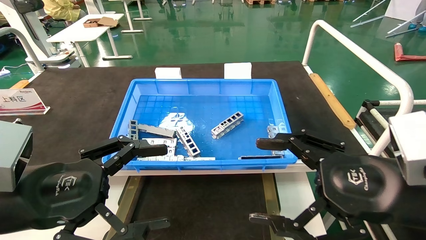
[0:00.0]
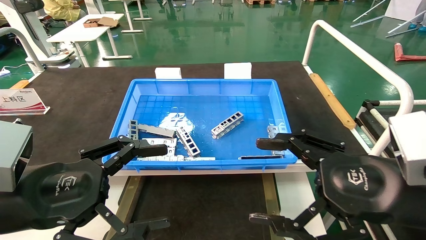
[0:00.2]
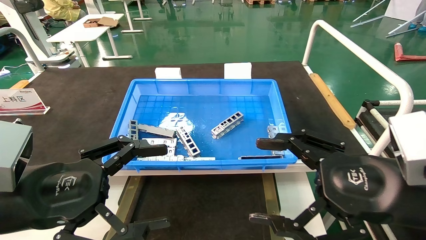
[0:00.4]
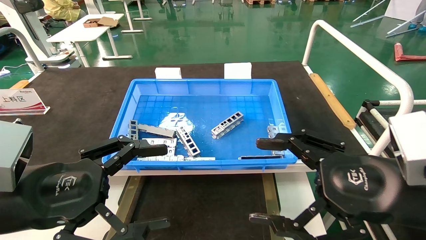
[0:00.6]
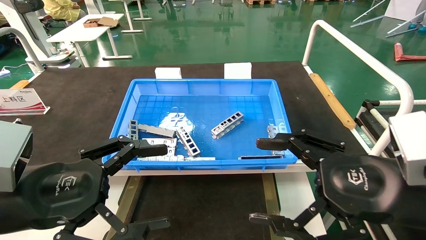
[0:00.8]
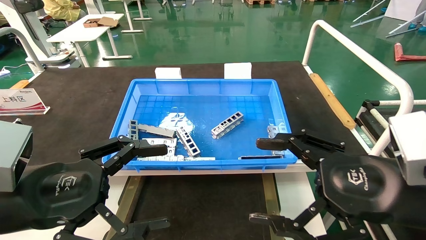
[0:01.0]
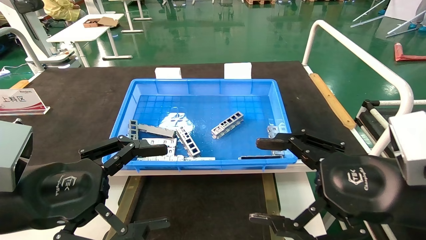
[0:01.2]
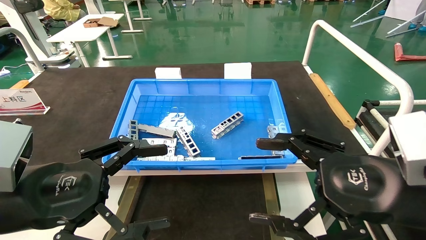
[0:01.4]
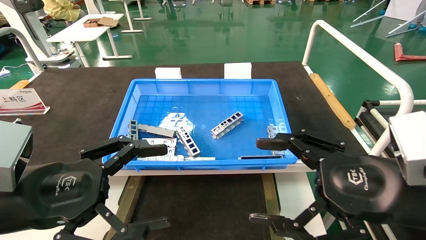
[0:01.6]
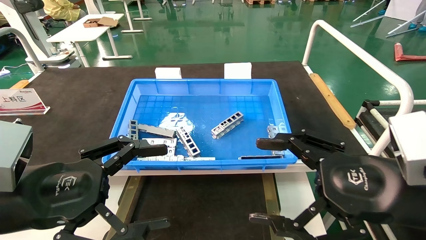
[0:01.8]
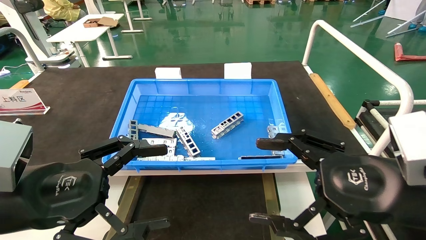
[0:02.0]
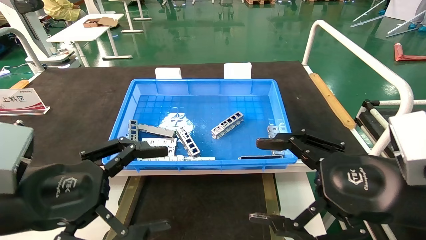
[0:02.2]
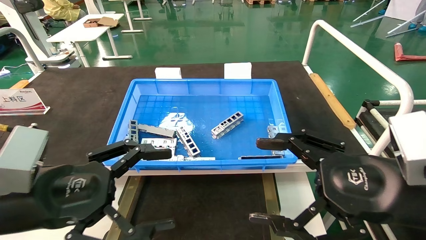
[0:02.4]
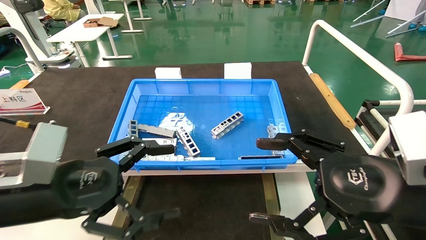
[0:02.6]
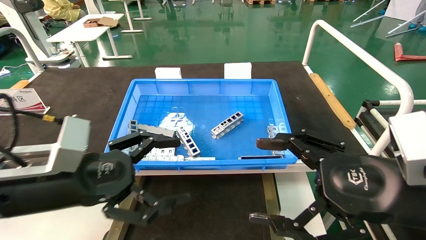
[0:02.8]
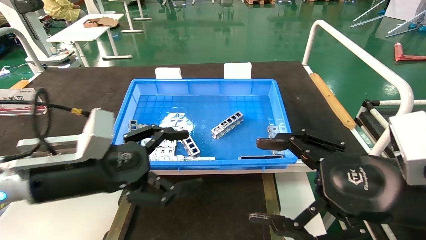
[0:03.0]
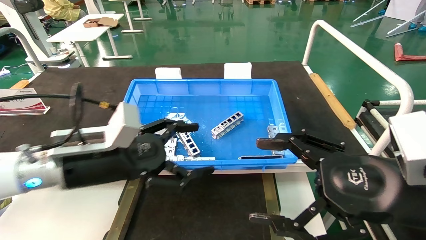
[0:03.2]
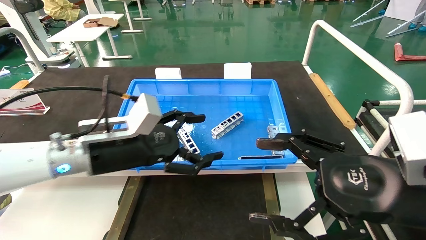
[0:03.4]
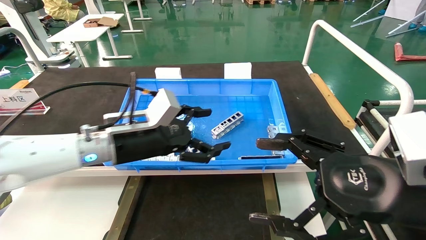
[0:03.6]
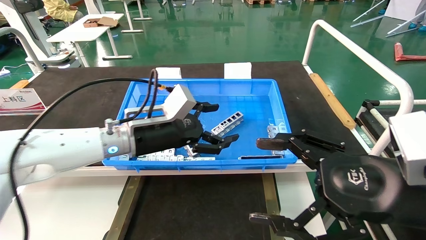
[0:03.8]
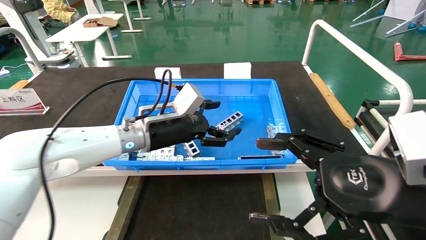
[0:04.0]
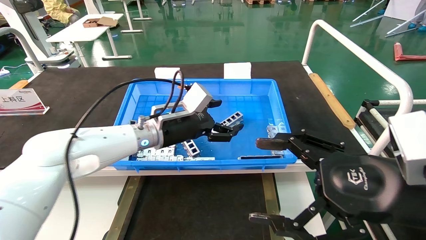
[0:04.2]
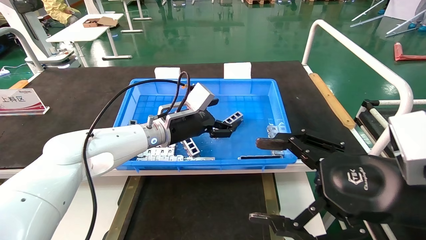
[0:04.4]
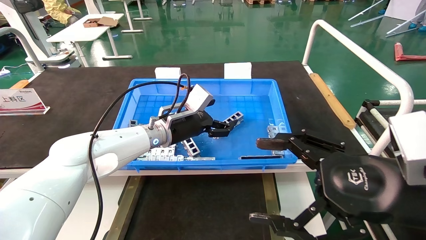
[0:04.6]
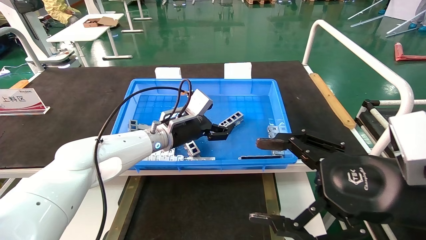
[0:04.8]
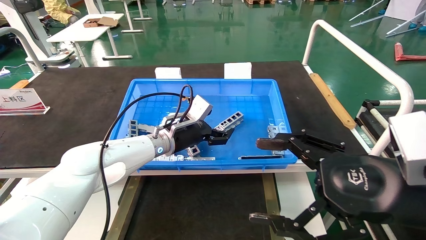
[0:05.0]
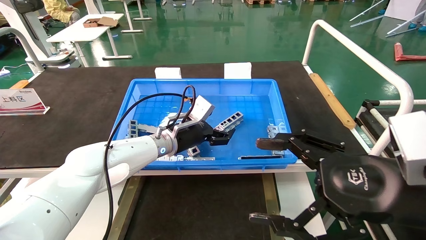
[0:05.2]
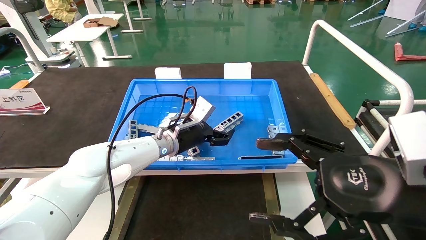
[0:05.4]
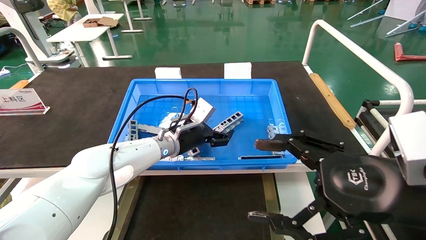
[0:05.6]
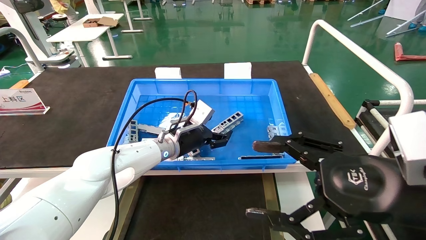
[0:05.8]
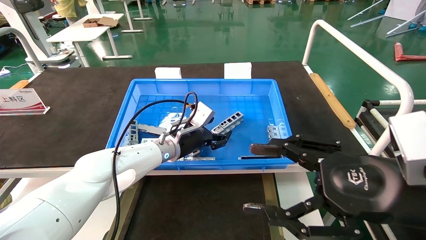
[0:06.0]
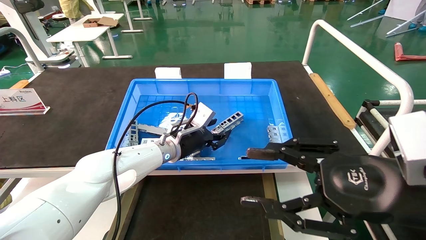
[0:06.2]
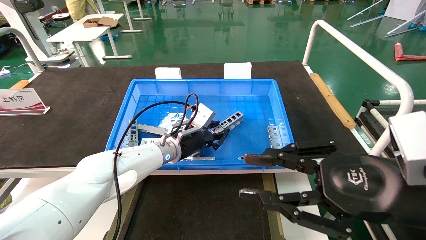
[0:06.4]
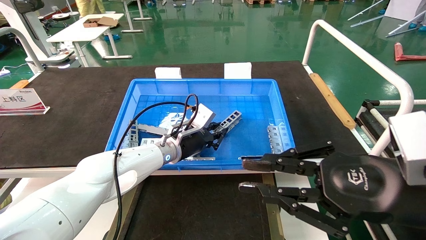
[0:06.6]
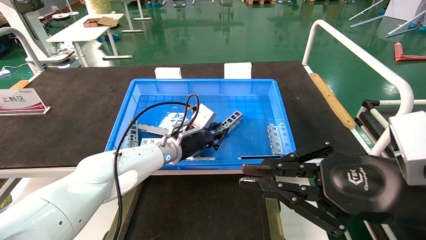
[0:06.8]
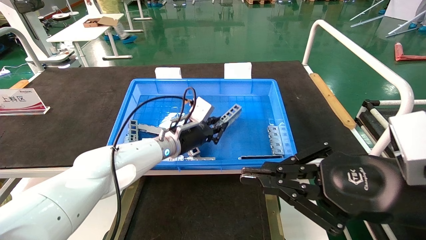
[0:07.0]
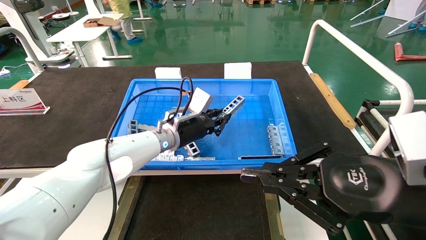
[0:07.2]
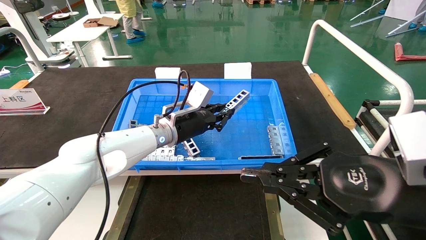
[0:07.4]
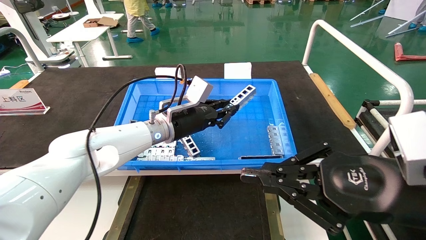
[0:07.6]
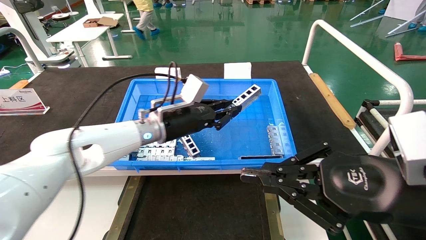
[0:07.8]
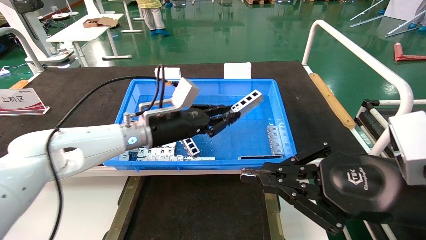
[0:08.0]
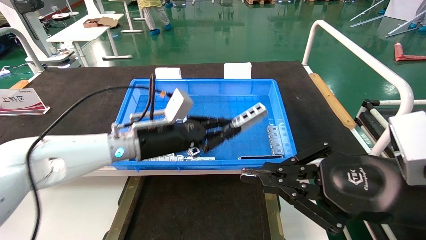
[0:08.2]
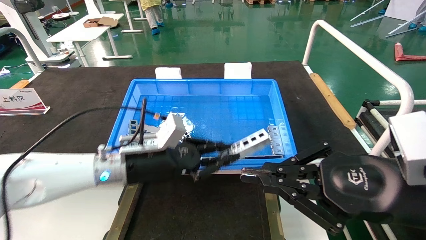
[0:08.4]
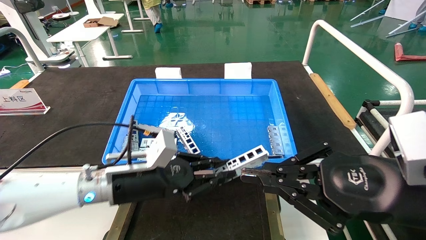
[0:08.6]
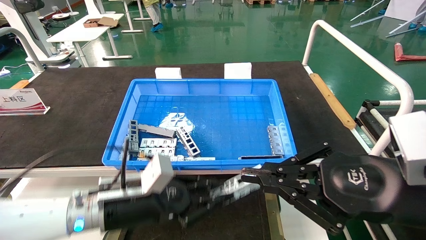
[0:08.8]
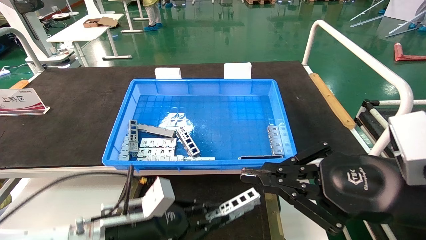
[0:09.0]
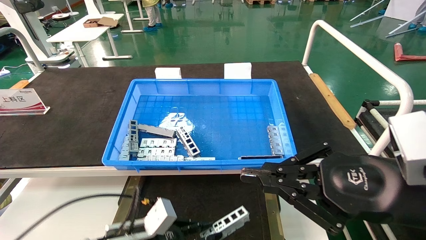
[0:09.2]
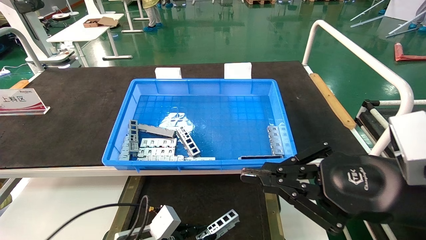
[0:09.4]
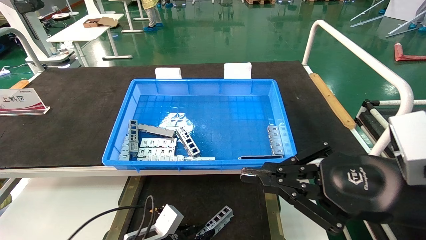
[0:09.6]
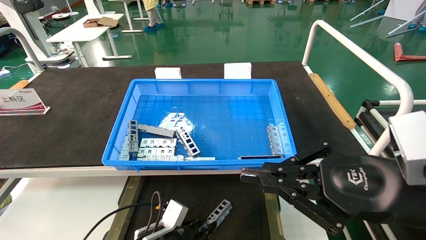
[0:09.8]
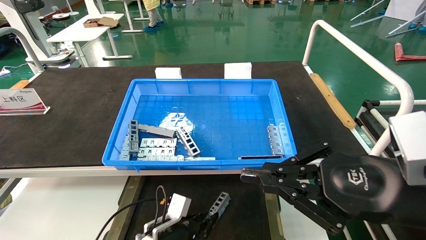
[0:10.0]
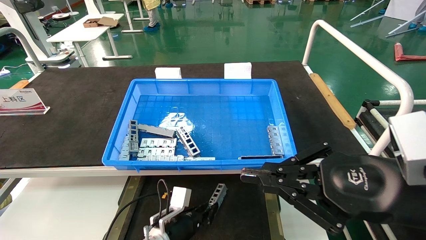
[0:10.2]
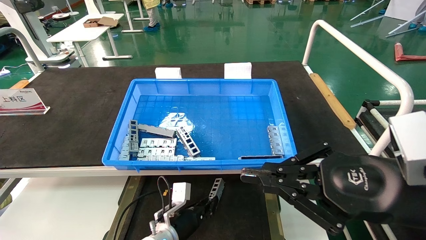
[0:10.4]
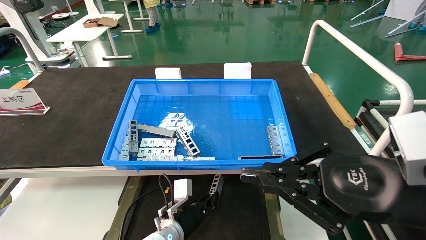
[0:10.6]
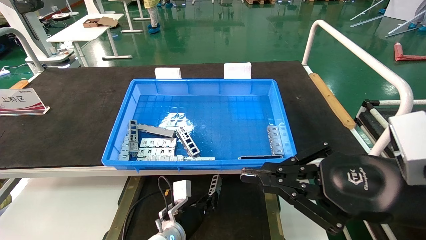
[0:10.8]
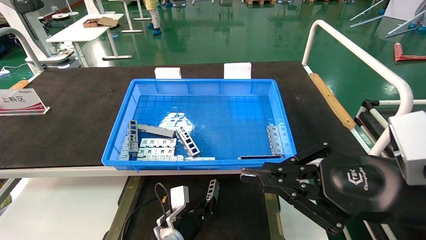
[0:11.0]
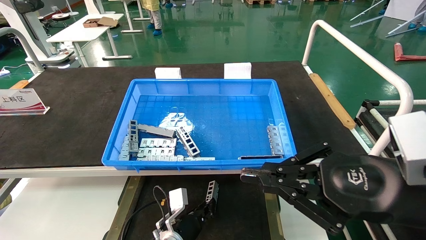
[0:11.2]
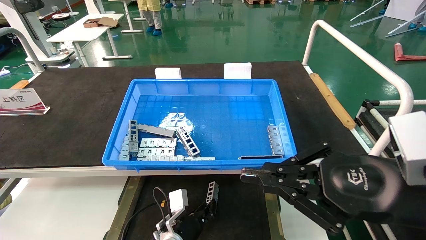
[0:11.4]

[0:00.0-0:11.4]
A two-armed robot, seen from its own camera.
Task of the whole recording: Grasp the part with one hand and place it on the black container.
Step, 0:02.6 to 0:07.2: Pick up the front USB bracket from the feeding area.
0:00.0 to 0:01.4: Neither gripper changes place.
0:01.4 to 0:02.8: The left gripper shifts by roughly 5 cm.
0:02.8 to 0:04.2: The left gripper shifts about 25 cm forward and to the right.
0:04.2 to 0:05.6: The left gripper moves downward, about 5 cm.
0:05.6 to 0:07.2: The right gripper closes. The left gripper closes its fingers.
0:07.2 to 0:08.6: The left gripper heads backward and to the left, covering approximately 15 cm.
0:08.6 to 0:10.0: The left gripper moves downward, roughly 20 cm.
0:10.0 to 0:11.4: The left gripper moves approximately 5 cm.

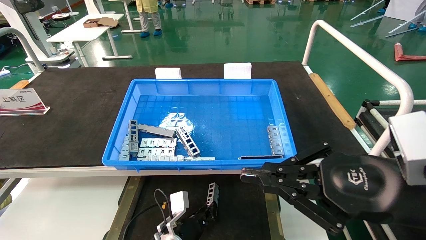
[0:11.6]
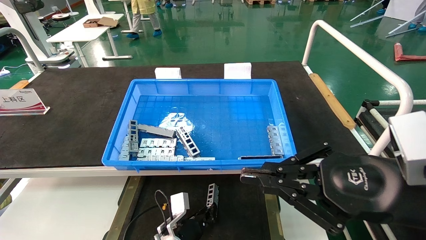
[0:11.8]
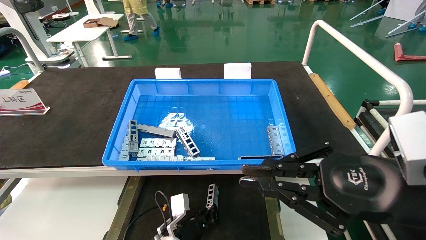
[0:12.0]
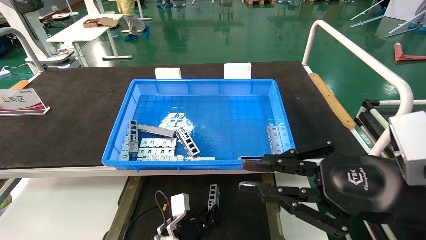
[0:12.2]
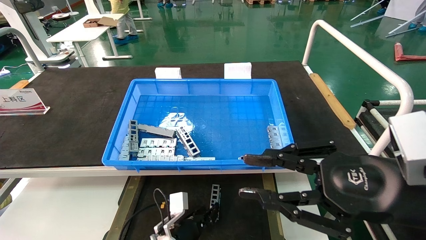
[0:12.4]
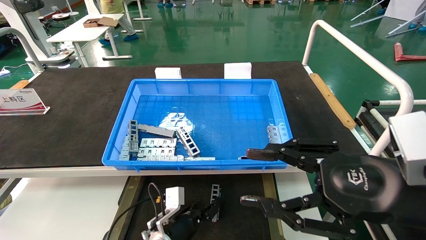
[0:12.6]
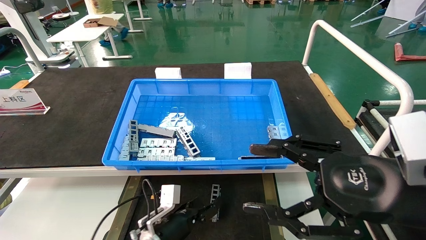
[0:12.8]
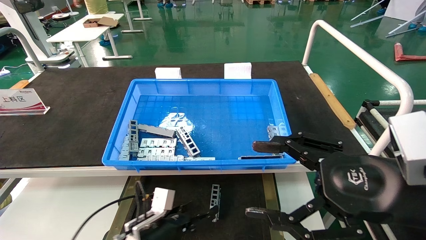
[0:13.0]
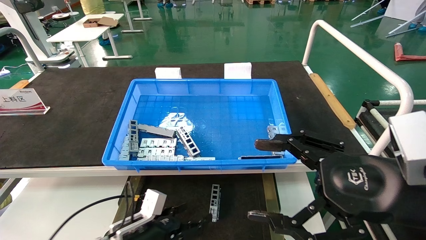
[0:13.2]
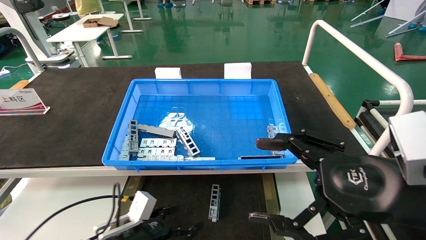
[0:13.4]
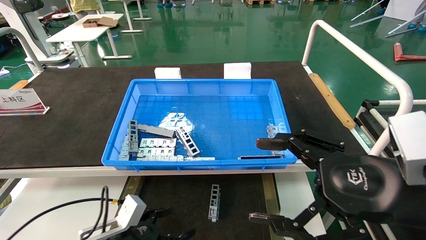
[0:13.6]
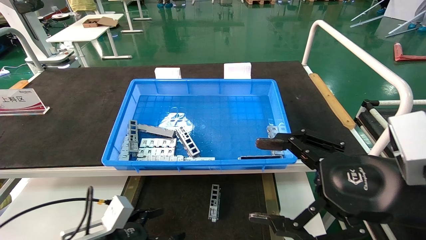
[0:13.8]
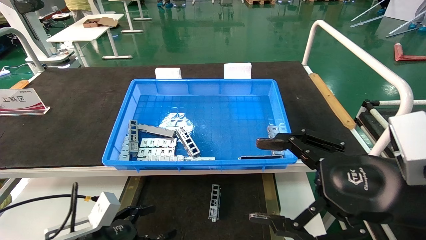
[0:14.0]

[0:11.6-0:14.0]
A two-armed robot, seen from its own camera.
Task of the whole recording: Grasp the part with one hand and place it on the black container.
0:11.6 to 0:12.8: The right gripper opens its fingers. Meanwhile the left gripper ends up approximately 5 cm from where it was, and opens.
0:12.8 to 0:14.0: The right gripper opens its fingers. The left gripper shifts roughly 15 cm to the left, backward and upward, and opens its fingers.
